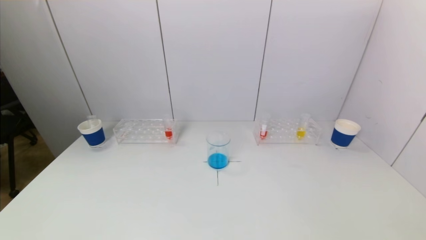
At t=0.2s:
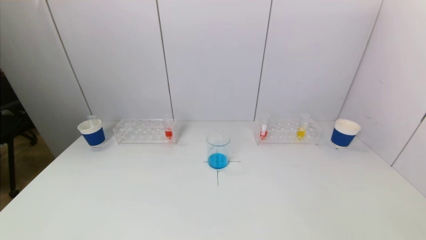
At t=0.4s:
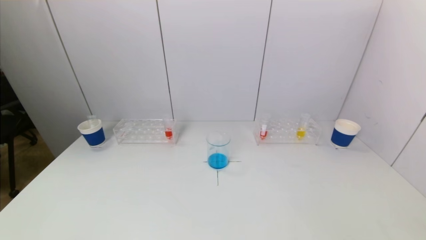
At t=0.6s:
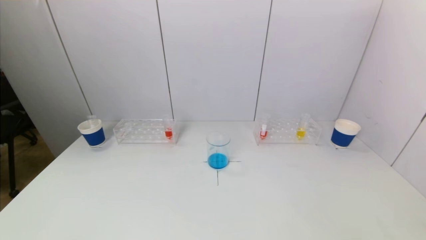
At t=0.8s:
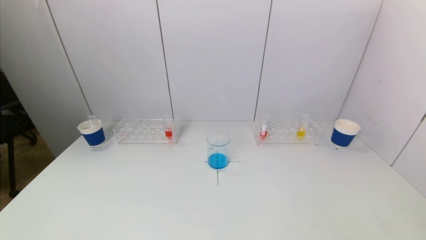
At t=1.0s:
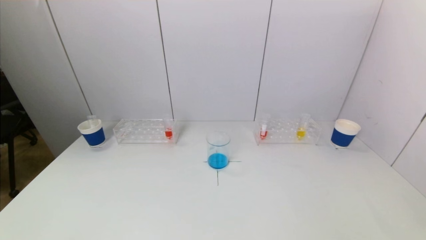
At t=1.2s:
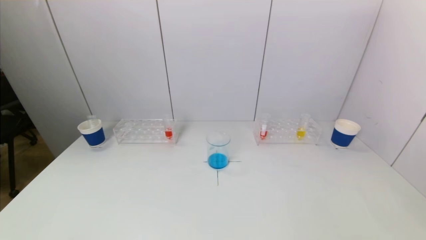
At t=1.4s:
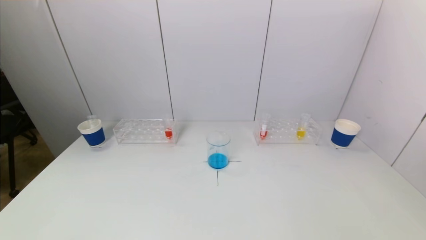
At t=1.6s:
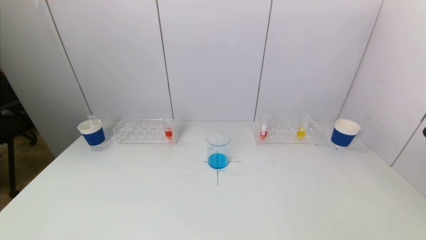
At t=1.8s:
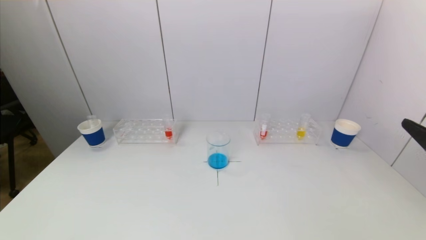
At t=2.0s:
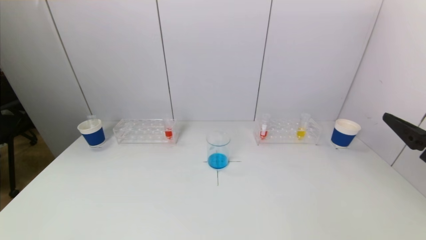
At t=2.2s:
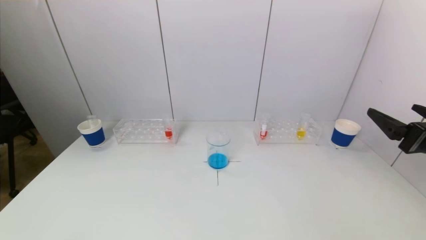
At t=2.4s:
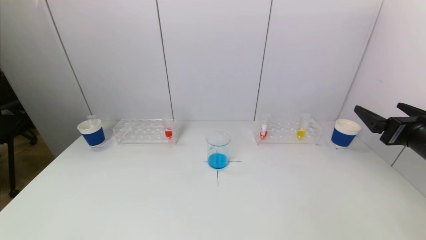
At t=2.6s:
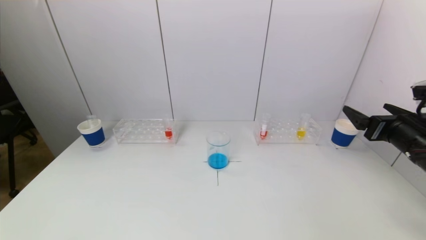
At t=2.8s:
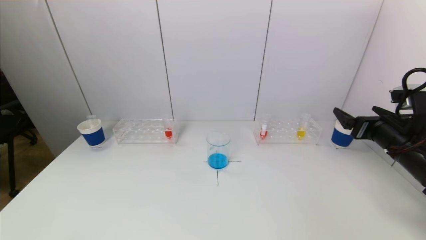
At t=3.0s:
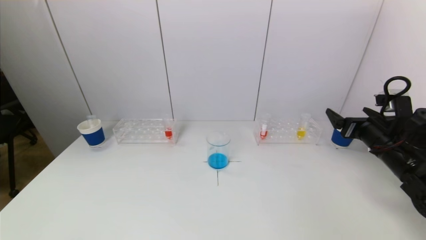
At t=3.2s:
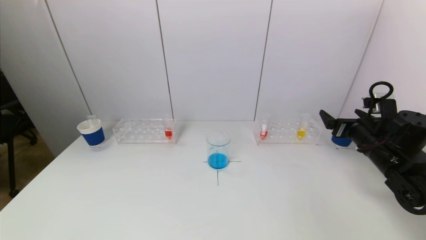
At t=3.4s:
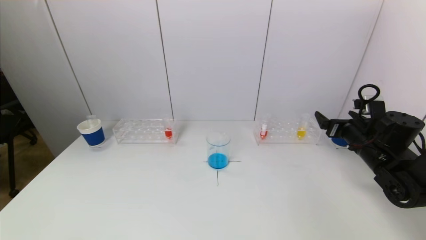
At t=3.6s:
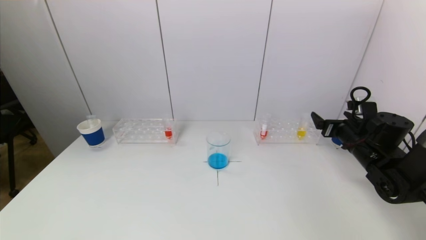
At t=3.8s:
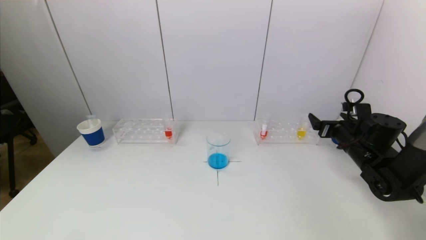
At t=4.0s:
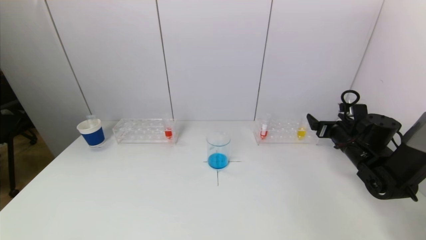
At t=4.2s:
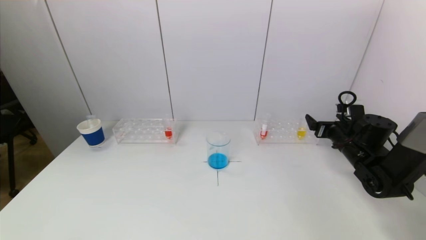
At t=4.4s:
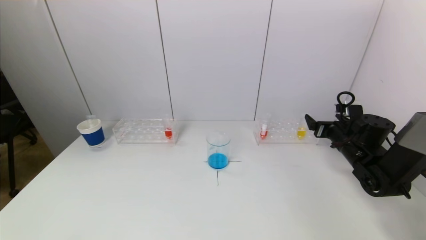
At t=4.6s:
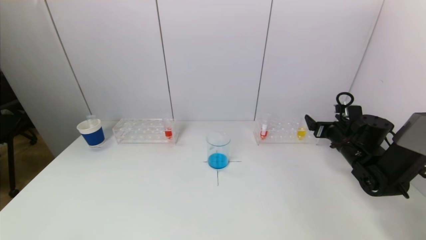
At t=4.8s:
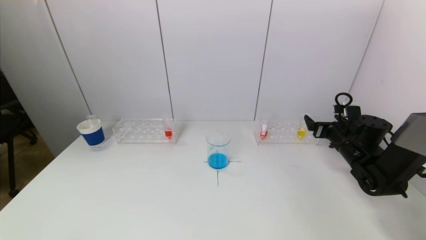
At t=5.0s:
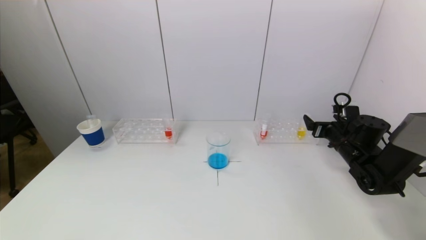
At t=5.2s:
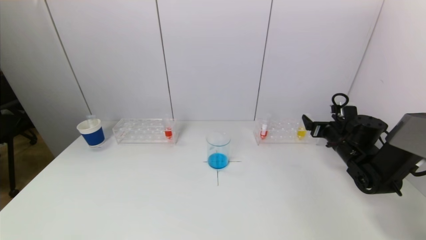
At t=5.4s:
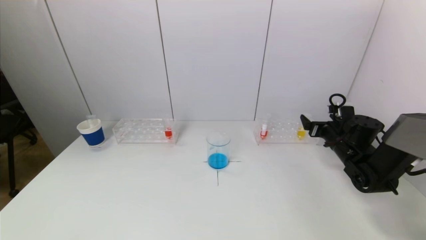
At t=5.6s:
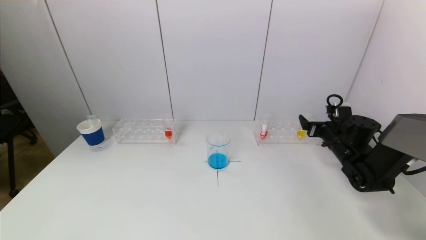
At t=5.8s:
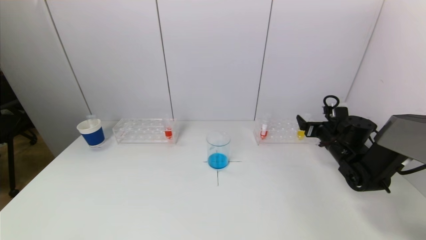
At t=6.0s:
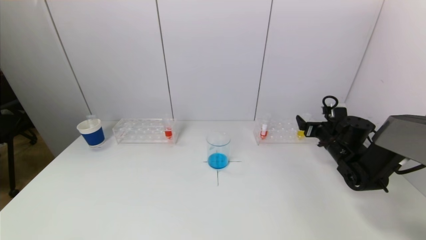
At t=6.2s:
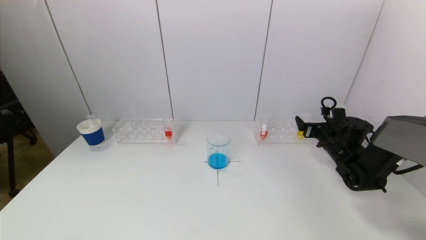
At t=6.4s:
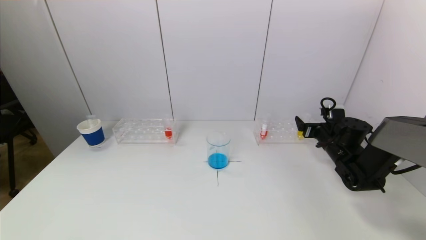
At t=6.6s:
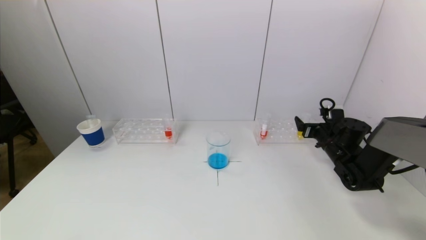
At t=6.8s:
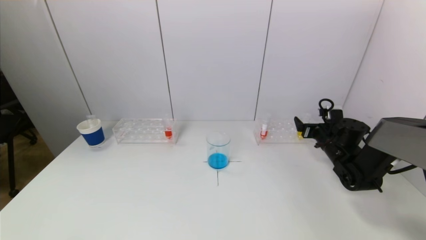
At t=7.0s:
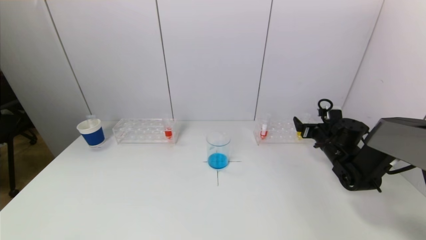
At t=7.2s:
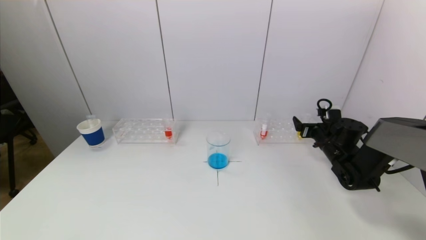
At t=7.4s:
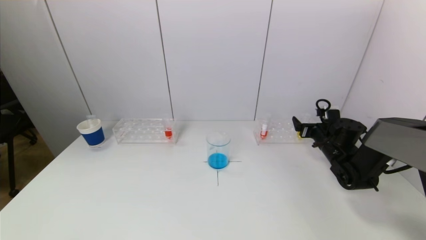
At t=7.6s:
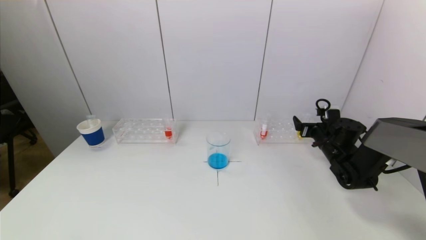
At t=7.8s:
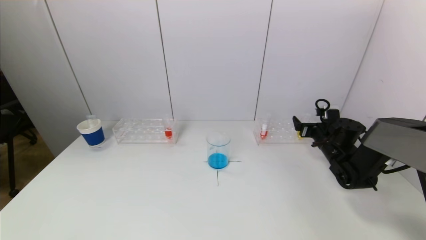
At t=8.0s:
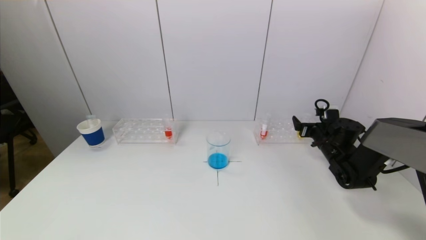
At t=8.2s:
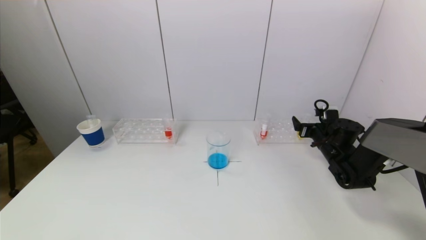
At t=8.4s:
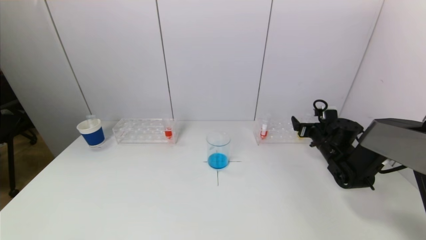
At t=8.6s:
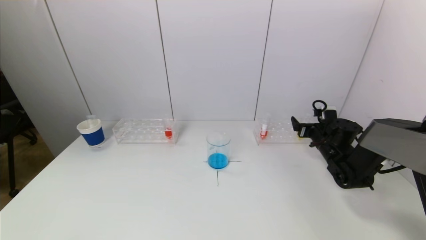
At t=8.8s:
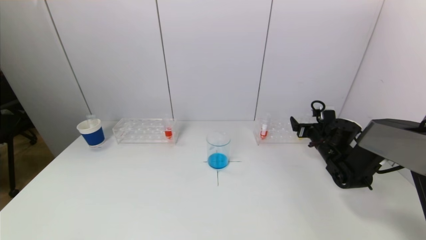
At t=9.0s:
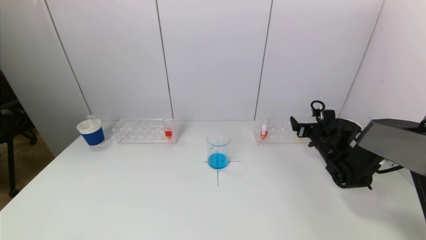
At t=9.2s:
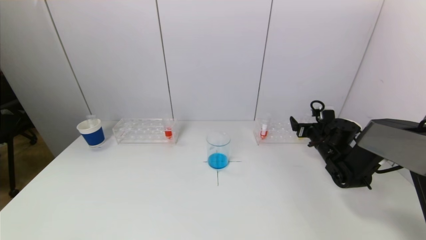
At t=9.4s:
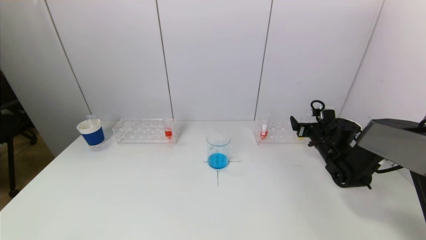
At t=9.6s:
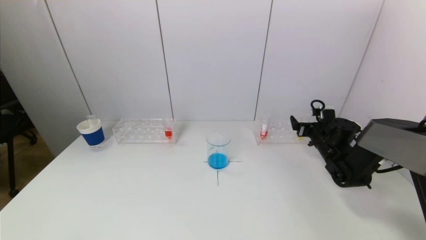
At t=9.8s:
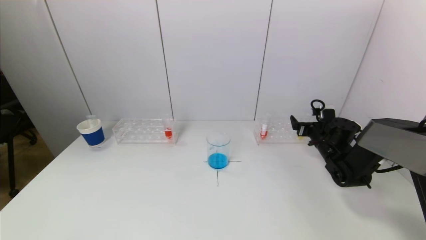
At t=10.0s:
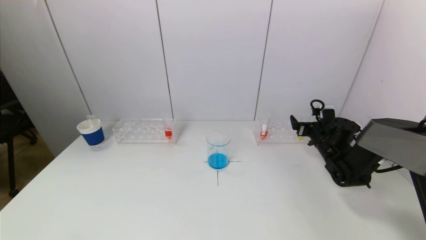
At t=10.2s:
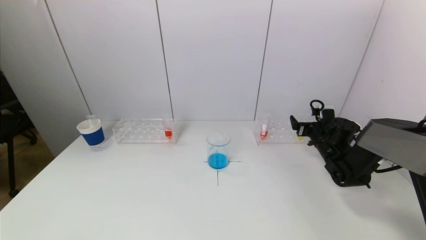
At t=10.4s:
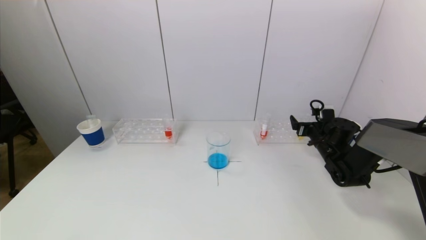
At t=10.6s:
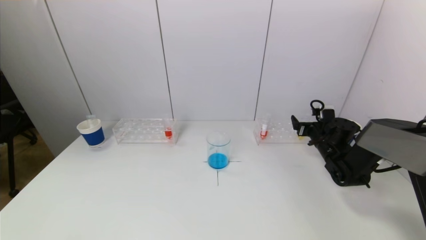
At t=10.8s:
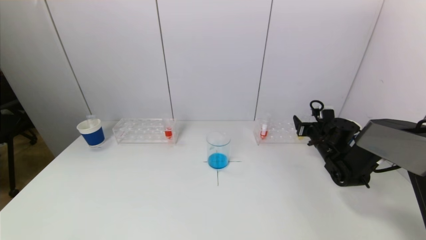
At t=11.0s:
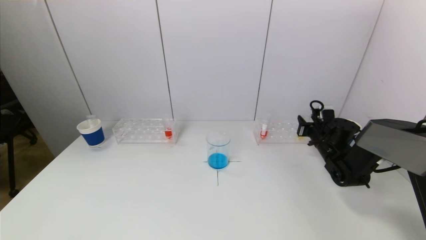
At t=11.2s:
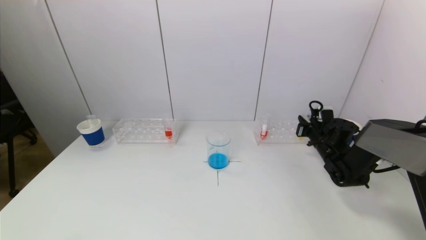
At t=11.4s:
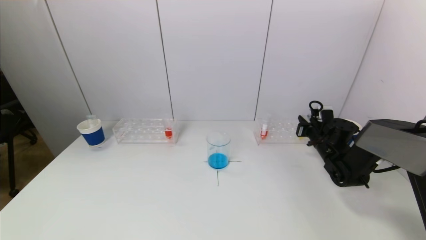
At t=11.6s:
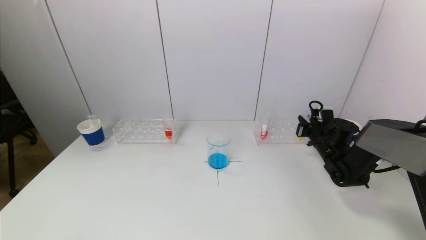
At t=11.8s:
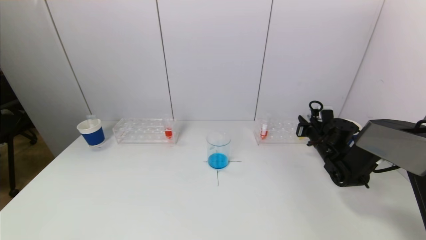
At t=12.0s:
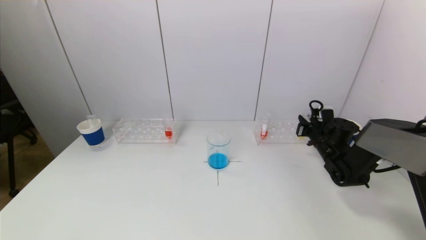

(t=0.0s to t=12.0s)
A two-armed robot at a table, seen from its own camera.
Task of the whole recording: pick up a test tube with pigment on left test tube rack and a test tube with pigment on right test tube rack by grippers and pour them into the beaker.
Step, t=0.0s - t=11.4s: Grasp the yellow reagent with the right gripper.
t=1.6s - t=3.0s: The right gripper is displaced forward and downward by some 20 cm.
t=3.0s - t=4.4s: The right gripper heads forward and downward, covering about 10 cm.
t=4.4s - t=7.6s: The grippers make only small movements.
t=7.6s - t=10.4s: Both grippers stay about where they are.
t=10.4s - t=12.0s: The right gripper closes its fingers.

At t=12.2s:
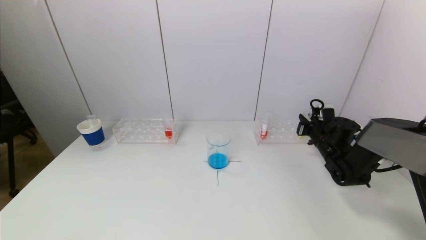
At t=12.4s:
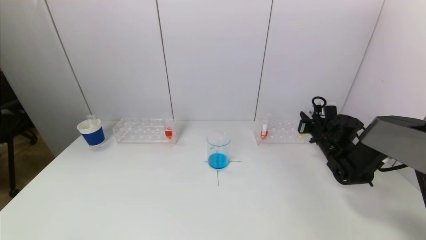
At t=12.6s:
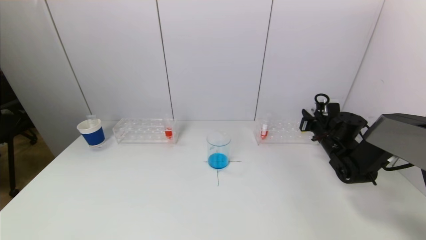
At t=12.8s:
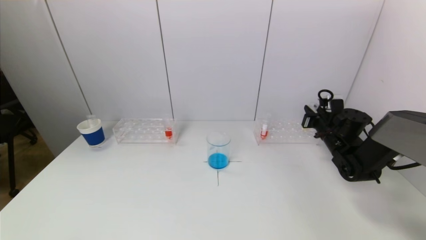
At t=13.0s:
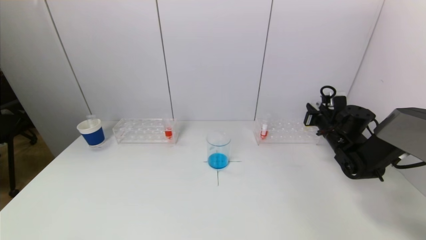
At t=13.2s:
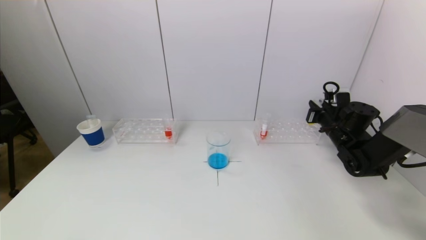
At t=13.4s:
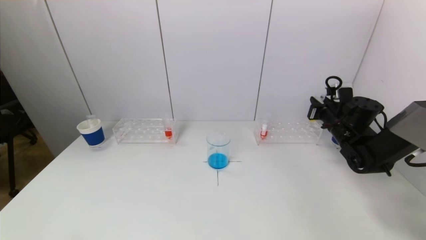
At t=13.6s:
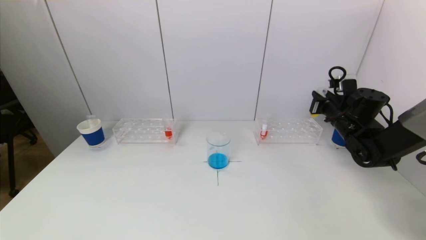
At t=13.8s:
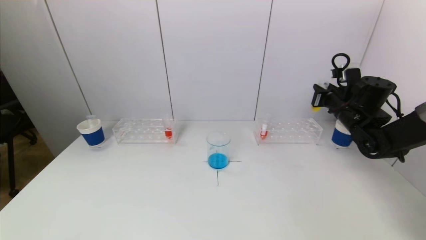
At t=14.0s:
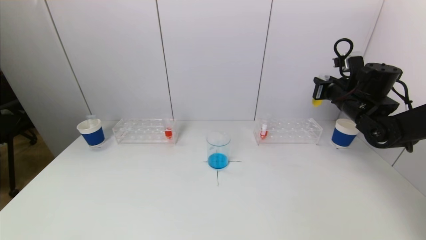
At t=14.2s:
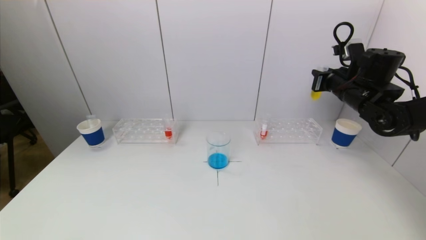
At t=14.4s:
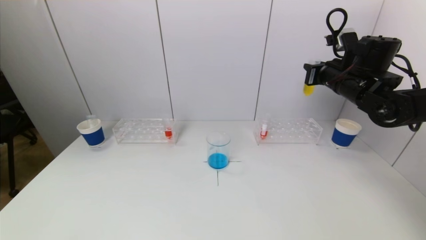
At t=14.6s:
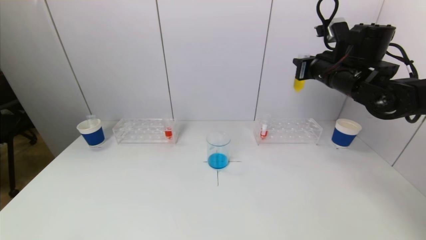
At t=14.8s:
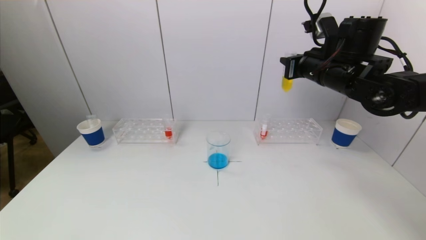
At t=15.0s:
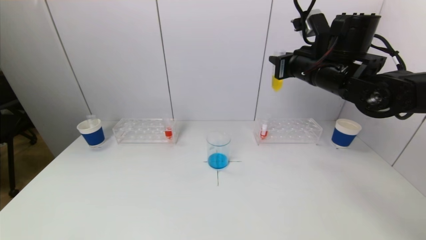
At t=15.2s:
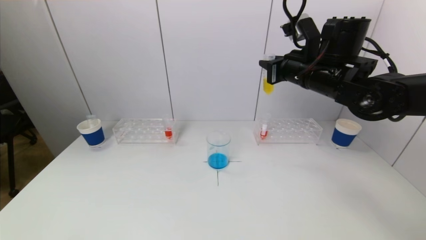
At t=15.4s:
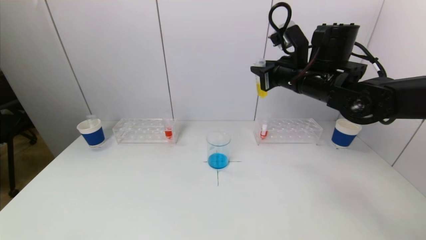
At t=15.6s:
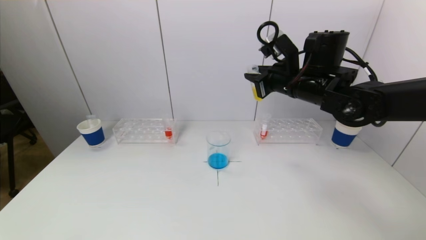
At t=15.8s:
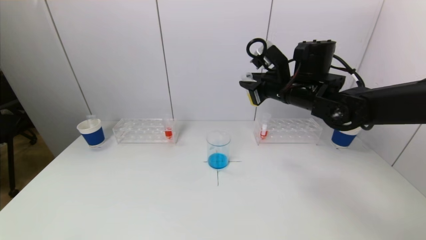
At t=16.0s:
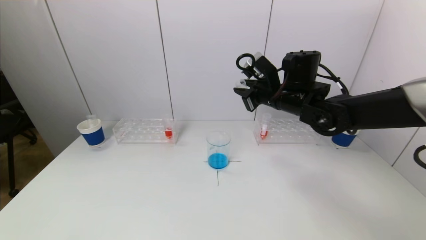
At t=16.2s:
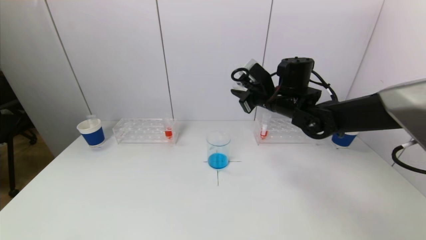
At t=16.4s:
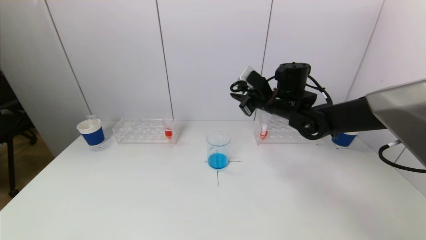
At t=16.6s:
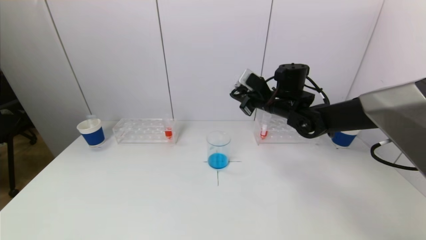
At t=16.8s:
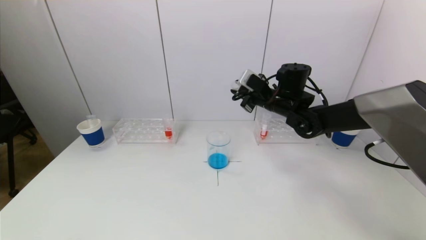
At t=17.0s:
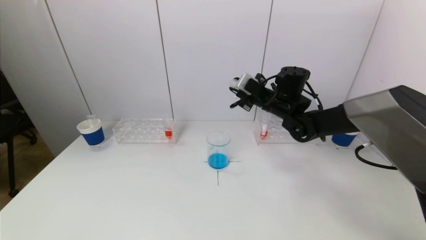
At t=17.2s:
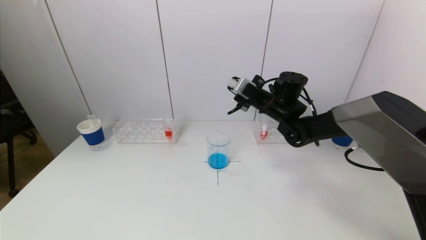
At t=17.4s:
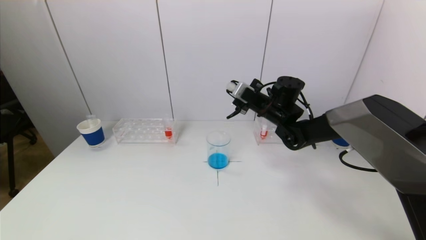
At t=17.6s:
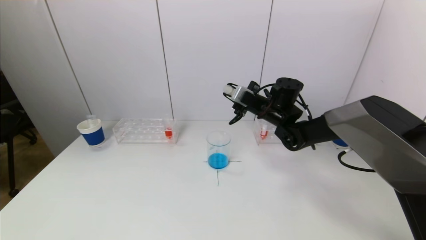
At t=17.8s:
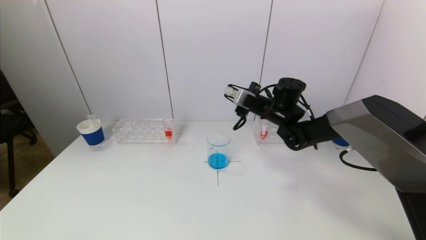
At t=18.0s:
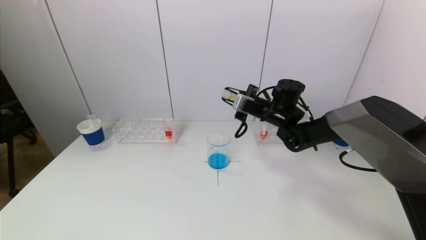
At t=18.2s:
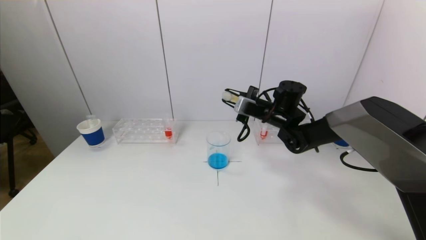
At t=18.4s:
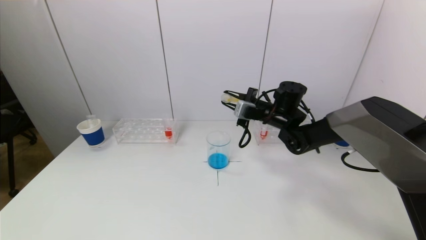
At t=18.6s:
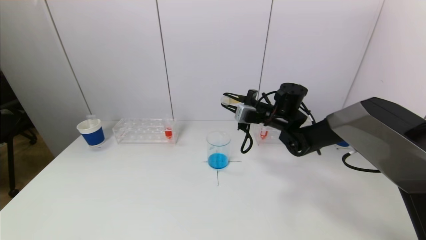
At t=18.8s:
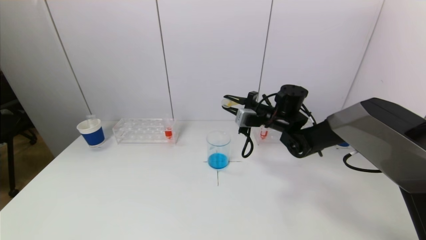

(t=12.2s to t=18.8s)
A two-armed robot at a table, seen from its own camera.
Task of the whole recording: pick up a test tube with pigment on left test tube rack and a test tube with pigment on right test tube rack by grippers and pour them into the beaker.
t=12.2s - t=13.8s: The right gripper is displaced upward by roughly 15 cm.
t=13.8s - t=15.4s: The right gripper heads to the left and upward, covering some 20 cm.
t=15.4s - t=17.2s: The right gripper shifts some 15 cm downward and forward.
